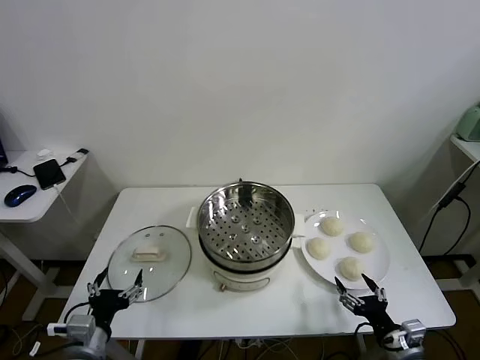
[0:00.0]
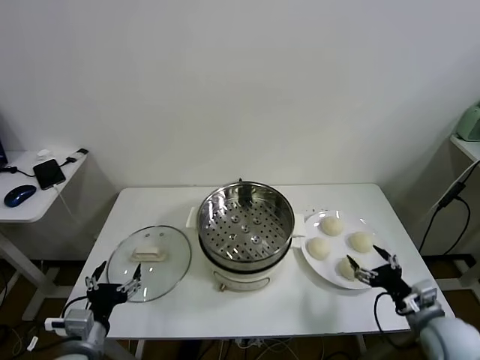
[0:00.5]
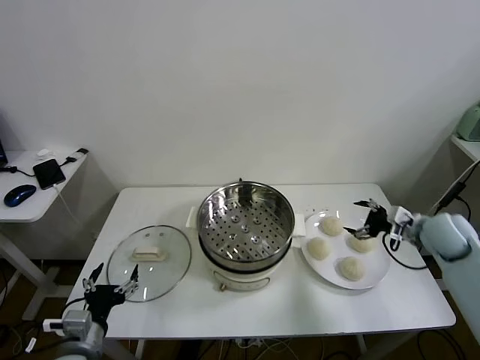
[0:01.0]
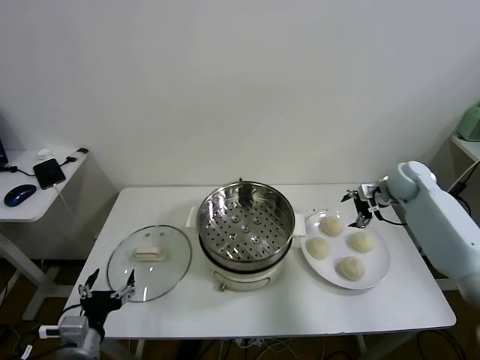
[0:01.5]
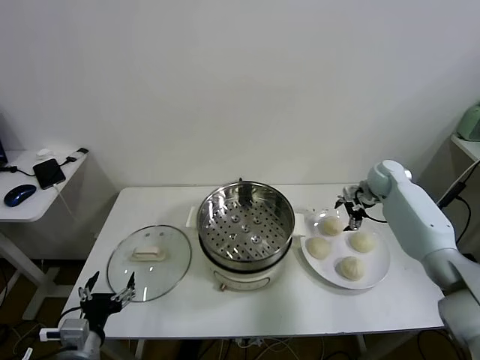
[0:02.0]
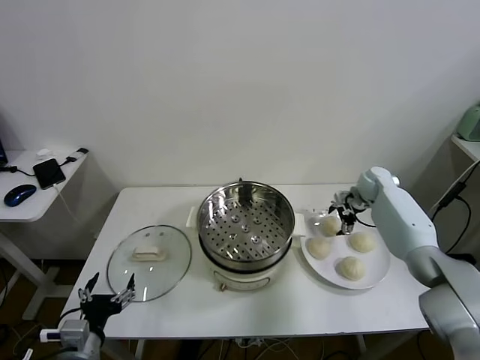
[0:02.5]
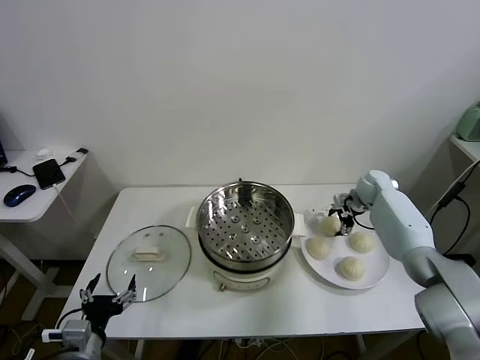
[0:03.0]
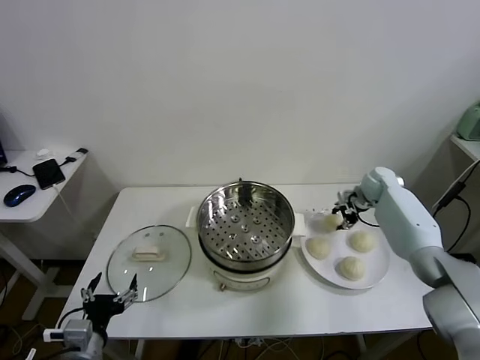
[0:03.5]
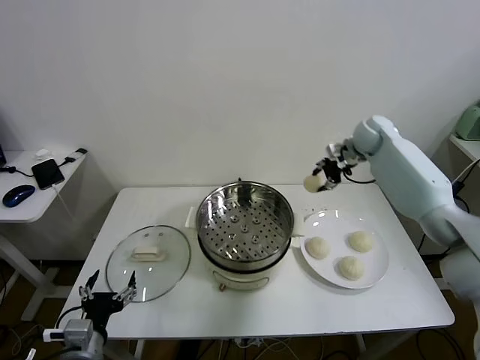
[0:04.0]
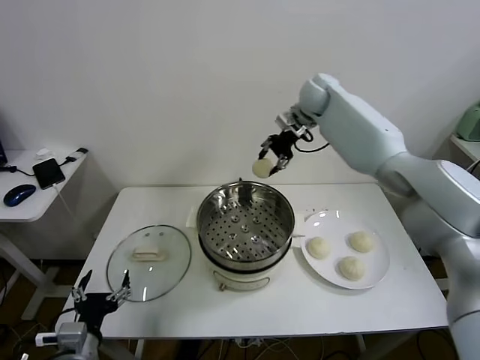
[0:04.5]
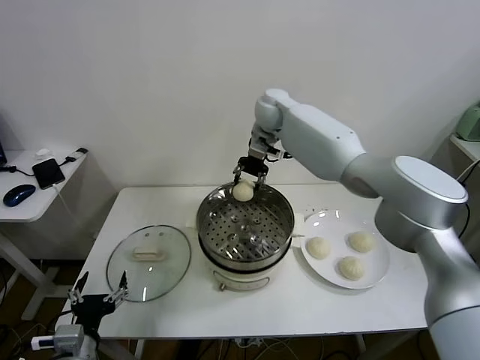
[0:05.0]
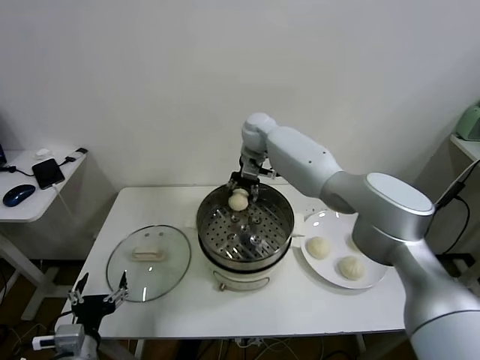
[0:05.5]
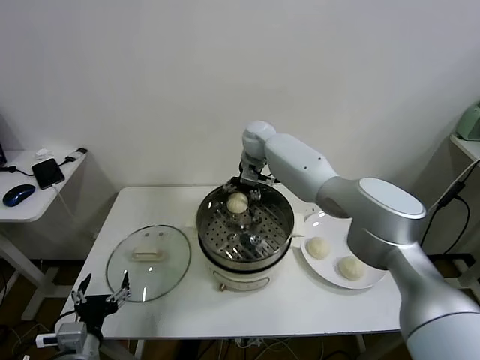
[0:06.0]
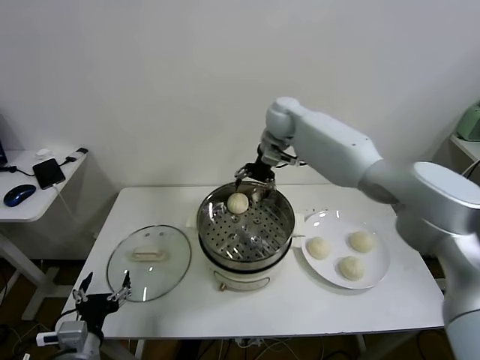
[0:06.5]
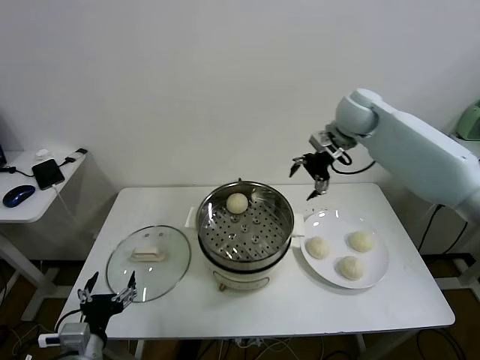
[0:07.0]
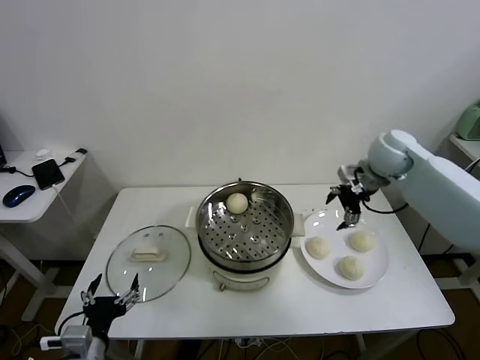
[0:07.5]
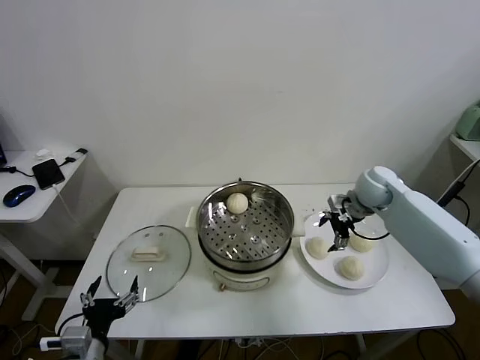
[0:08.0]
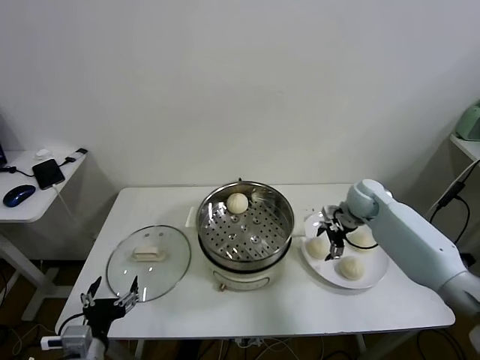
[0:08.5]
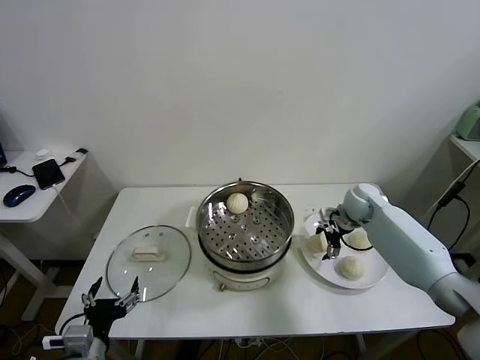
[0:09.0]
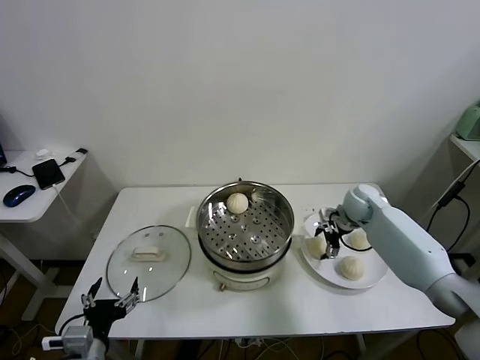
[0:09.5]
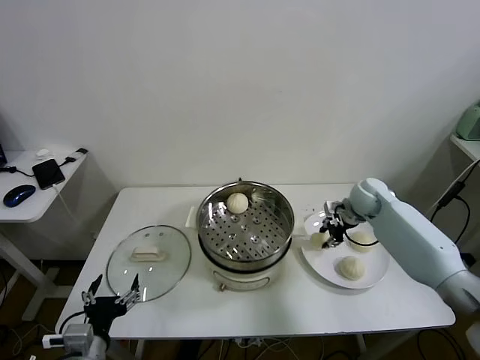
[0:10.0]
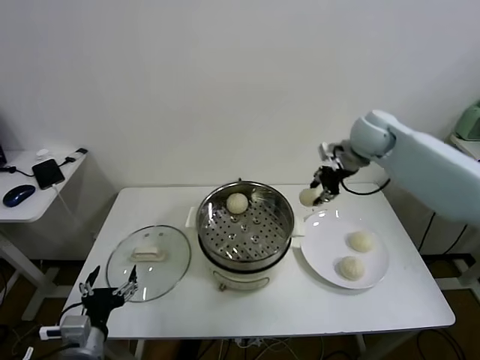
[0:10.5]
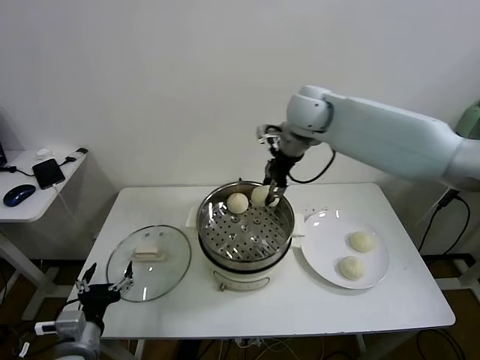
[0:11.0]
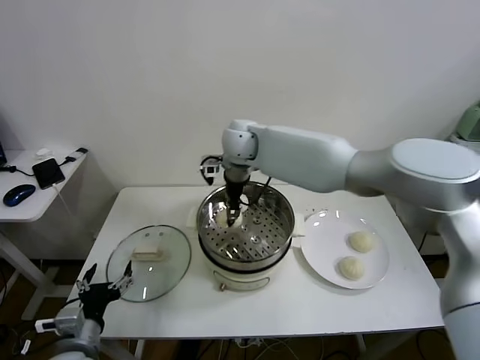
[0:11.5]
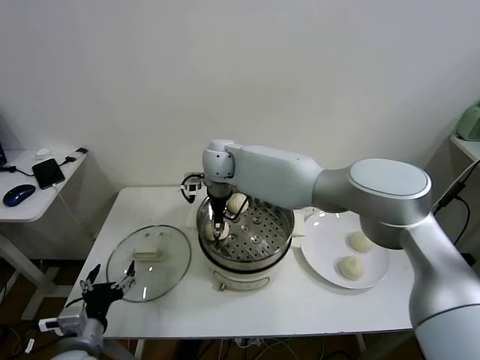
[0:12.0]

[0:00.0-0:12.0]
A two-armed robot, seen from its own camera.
Task of the whole recording: take steamed baozi put them in steamer.
Step, 0:00.0 to 0:03.0: Grasp the baozi in the plate with right gripper.
Step, 0:03.5 to 0:06.0: Place the baozi on the steamer with right gripper.
Step, 0:06.5 to 0:09.5: Grasp the baozi in the plate with right gripper.
0:02.0 to 0:04.0: The right gripper shifts some 15 cm upward and to the left, and closes up.
0:04.0 to 0:06.0: The right gripper is displaced to the left by roughly 30 cm, and opens up.
0:06.0 to 0:08.0: The right gripper is displaced to the right and backward by roughly 30 cm.
0:08.0 to 0:10.0: The right gripper closes.
0:10.0 to 0:12.0: The right gripper shifts some 40 cm to the left.

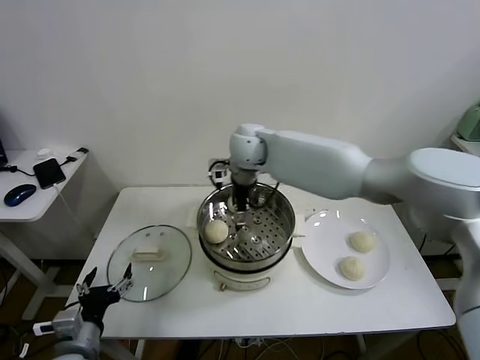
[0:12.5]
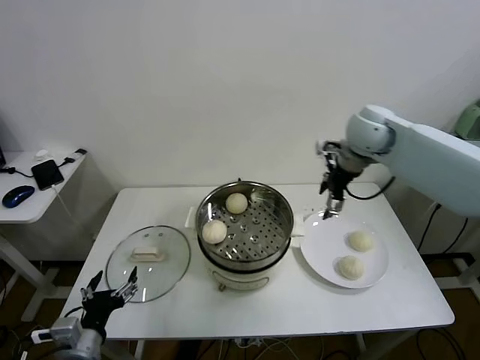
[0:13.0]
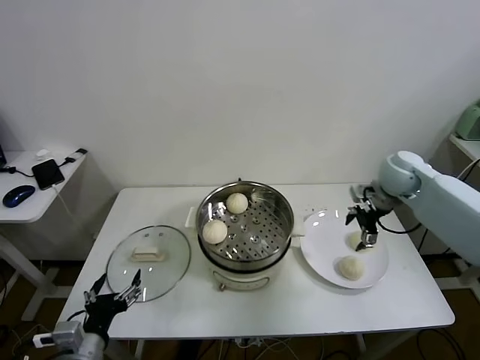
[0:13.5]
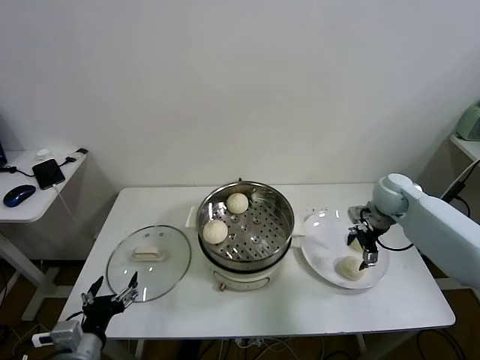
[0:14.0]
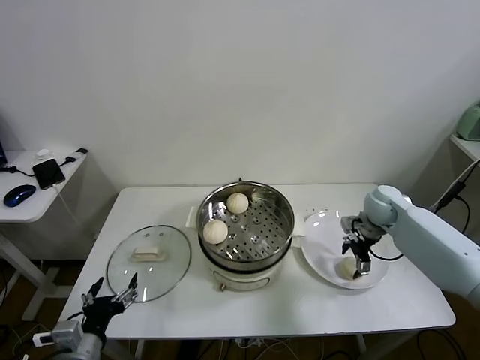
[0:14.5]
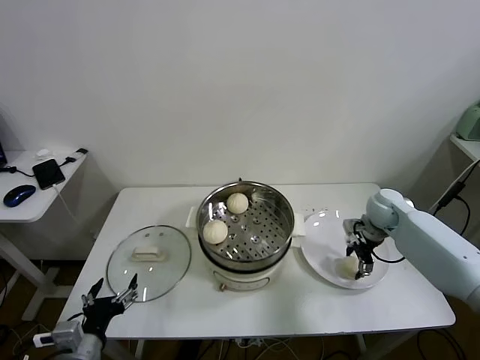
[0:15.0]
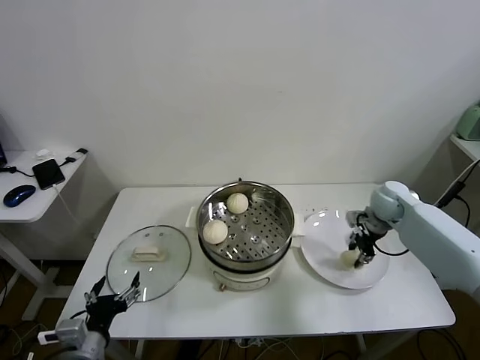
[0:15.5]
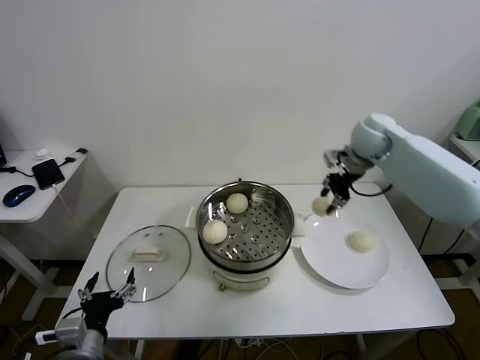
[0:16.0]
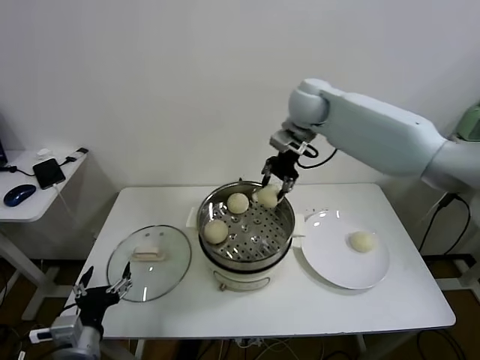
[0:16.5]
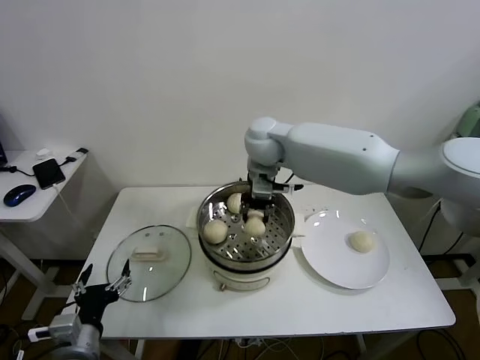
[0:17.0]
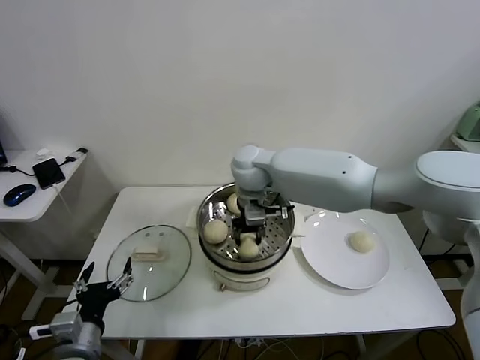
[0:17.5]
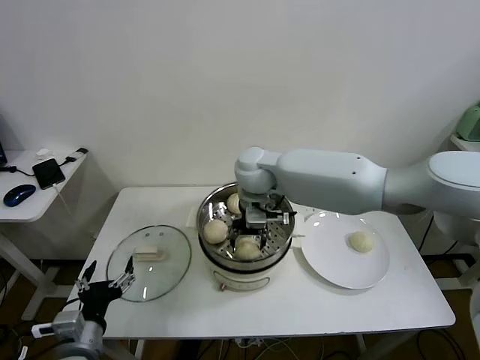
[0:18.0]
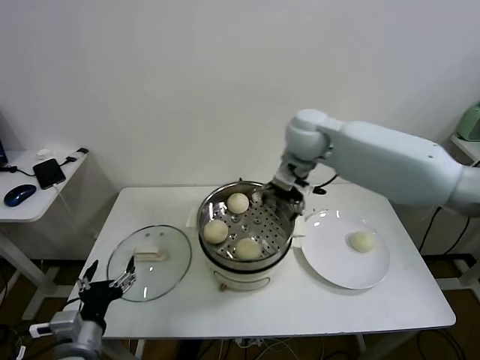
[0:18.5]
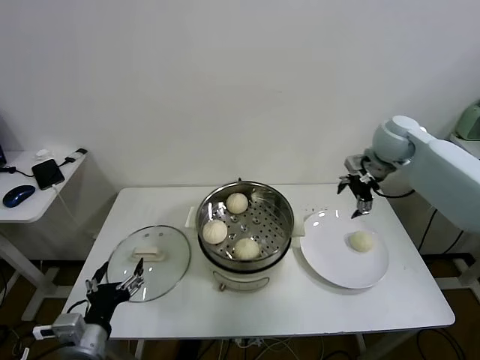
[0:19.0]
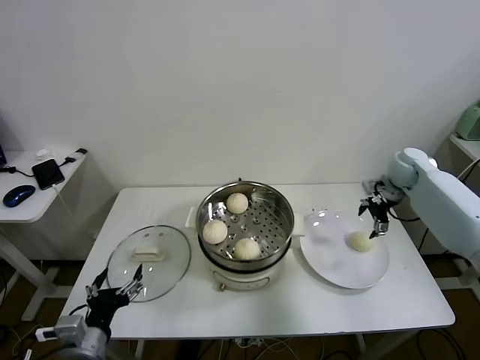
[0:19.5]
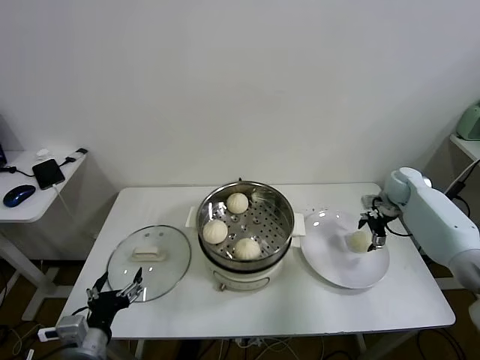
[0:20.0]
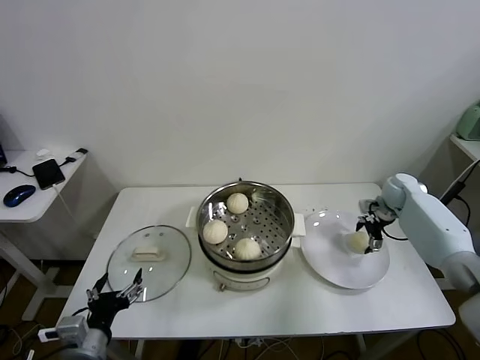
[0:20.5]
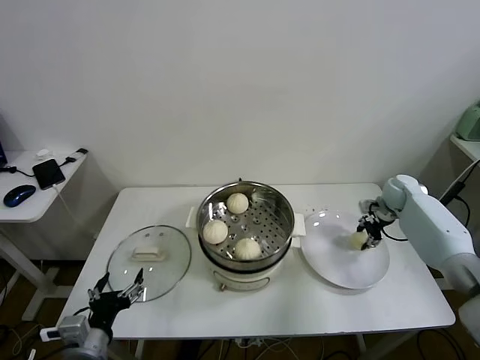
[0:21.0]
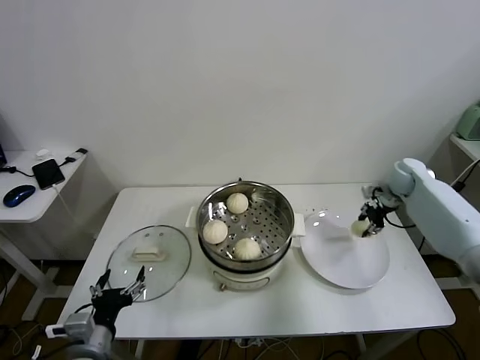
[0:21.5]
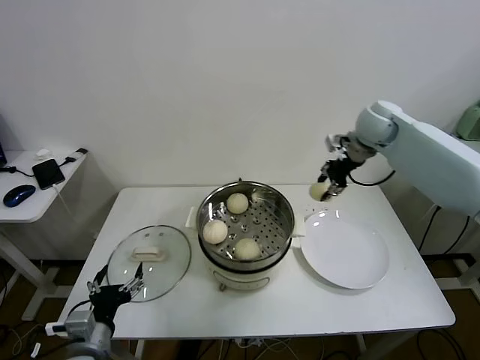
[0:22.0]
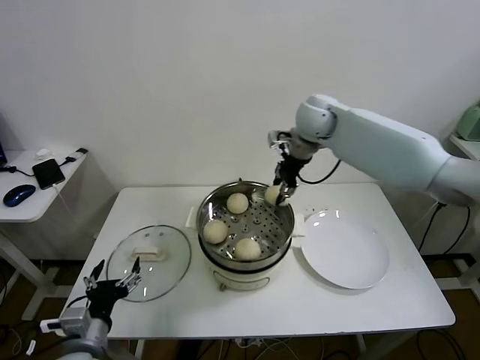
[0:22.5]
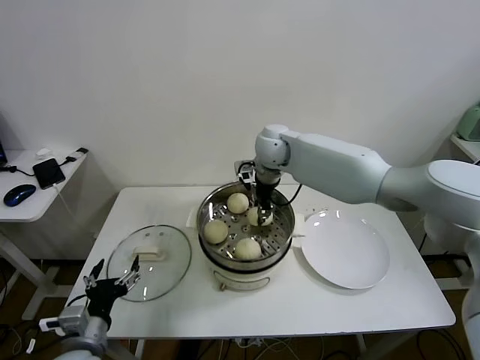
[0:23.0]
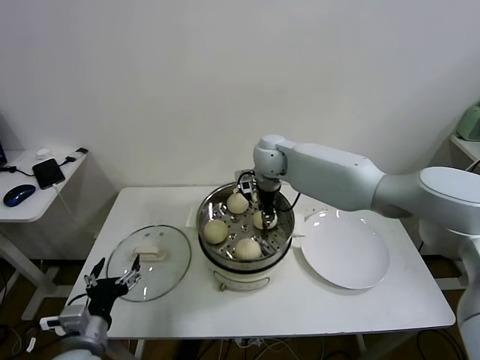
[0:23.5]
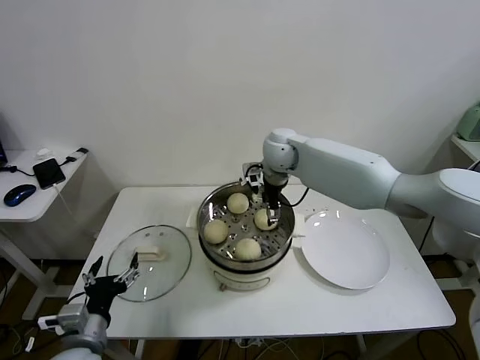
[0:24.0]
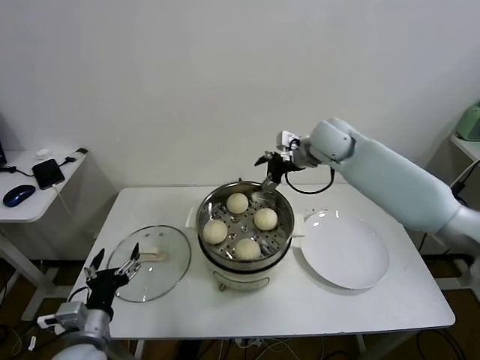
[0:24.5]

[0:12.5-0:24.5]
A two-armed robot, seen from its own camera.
Task of the whole recording: take steamed baozi put them in steamer.
Step, 0:12.5 to 0:15.0: Grasp the baozi in the plate with right gripper.
Step, 0:15.5 to 0:18.0: Place the baozi on the steamer with right gripper.
Step, 0:18.5 to 0:20.5: Grasp the baozi in the plate with right gripper.
Step, 0:21.0 to 0:23.5: Place the baozi on the steamer with right gripper.
0:12.5 to 0:14.5: The right gripper moves to the right and downward, about 40 cm.
0:14.5 to 0:16.5: The right gripper goes about 35 cm upward and to the left, and closes.
0:16.5 to 0:18.5: The right gripper moves backward, about 5 cm, goes to the left and returns, roughly 10 cm each way, and opens up.
0:18.5 to 0:20.5: The right gripper moves to the right and downward, approximately 40 cm.
0:20.5 to 0:22.5: The right gripper travels to the left and upward by some 35 cm, and closes its fingers.
0:22.5 to 0:24.5: The right gripper reaches some 10 cm to the left, then returns, and opens up.

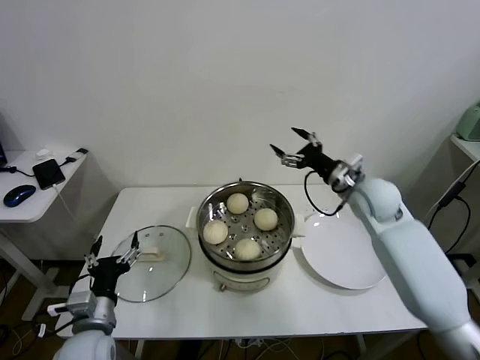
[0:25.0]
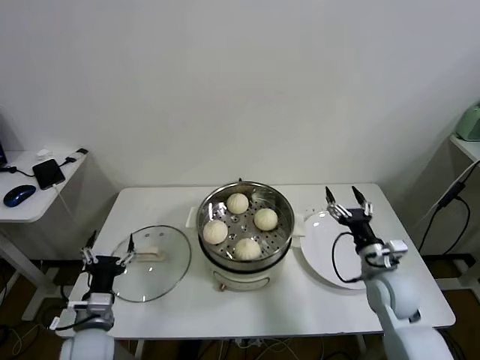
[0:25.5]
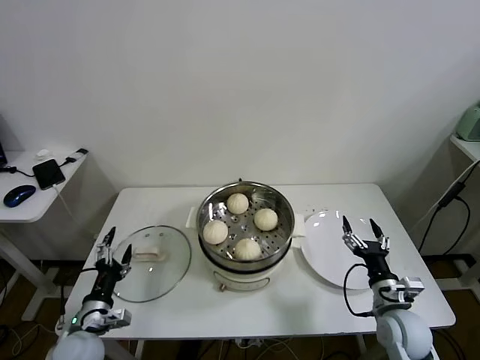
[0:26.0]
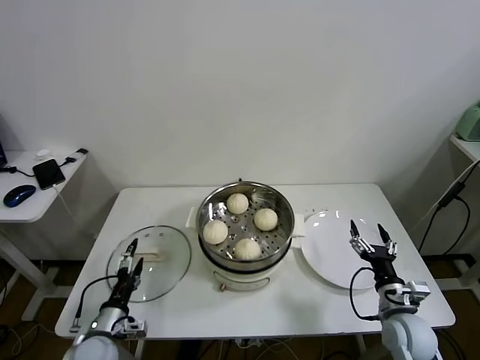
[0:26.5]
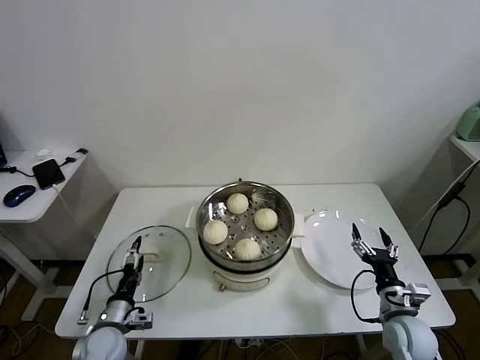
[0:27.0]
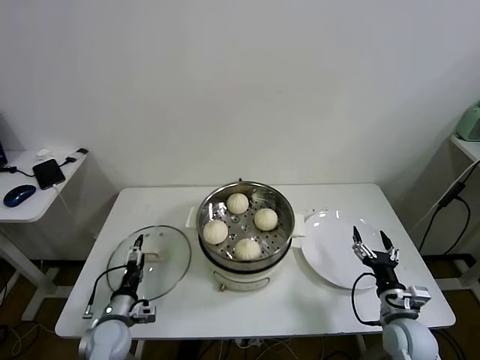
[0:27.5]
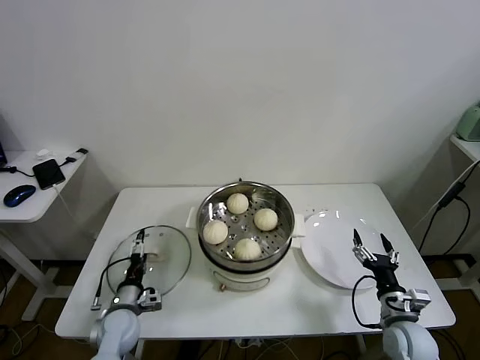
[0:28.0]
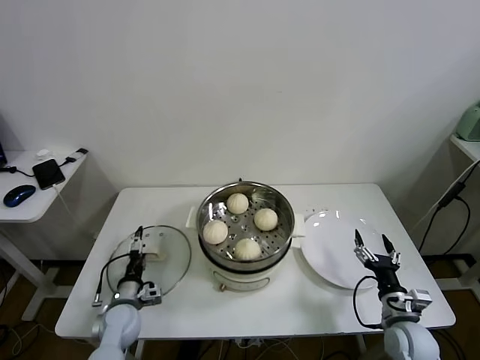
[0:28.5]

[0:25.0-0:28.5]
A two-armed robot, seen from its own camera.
Task of the whole recording: take steamed baozi put them in steamer.
0:25.0 to 0:27.0: The left gripper is displaced downward by about 10 cm. The right gripper is displaced backward and downward by approximately 30 cm.
0:27.0 to 0:28.5: The left gripper heads forward, covering roughly 5 cm.
